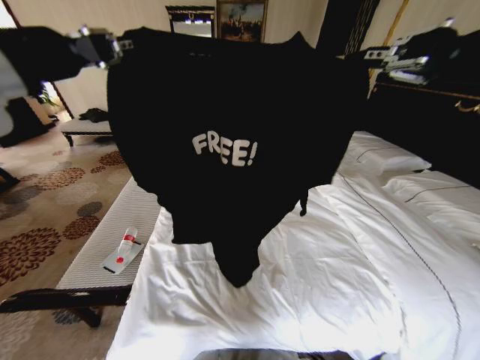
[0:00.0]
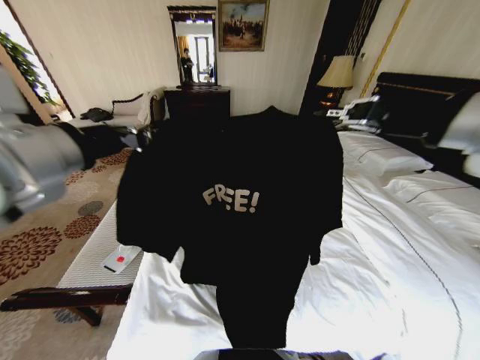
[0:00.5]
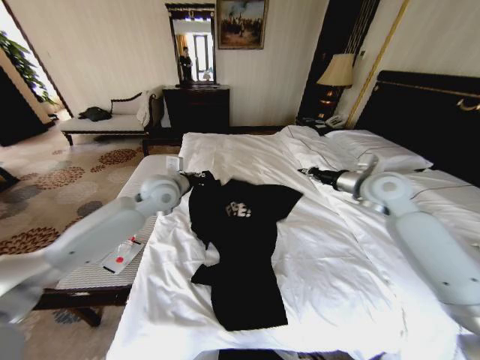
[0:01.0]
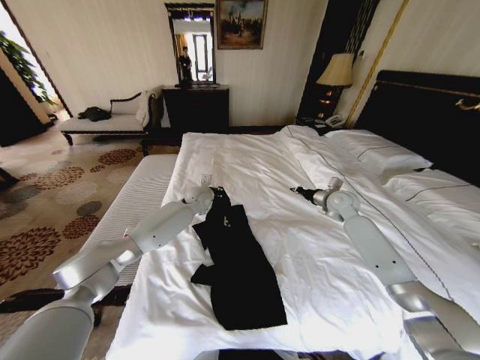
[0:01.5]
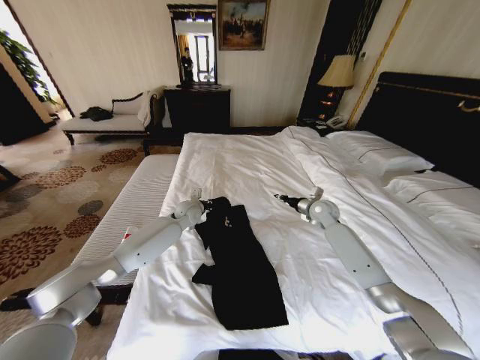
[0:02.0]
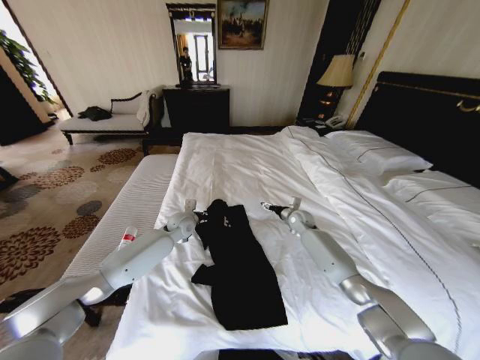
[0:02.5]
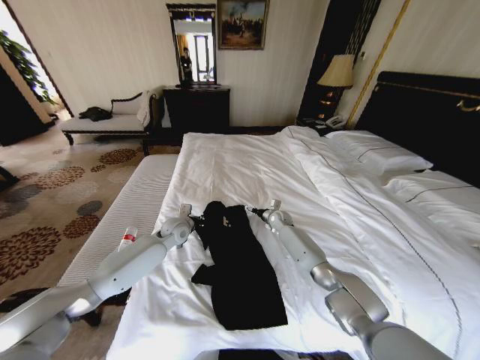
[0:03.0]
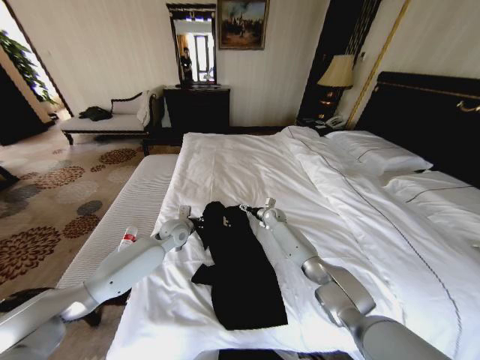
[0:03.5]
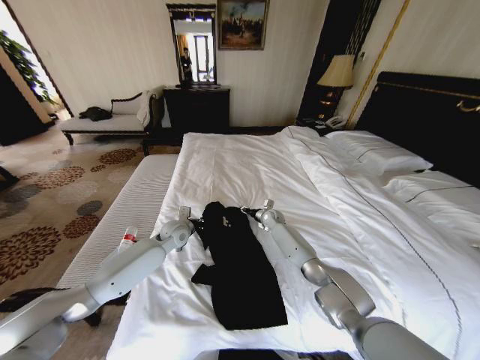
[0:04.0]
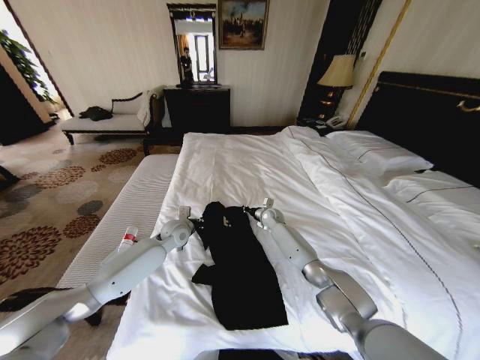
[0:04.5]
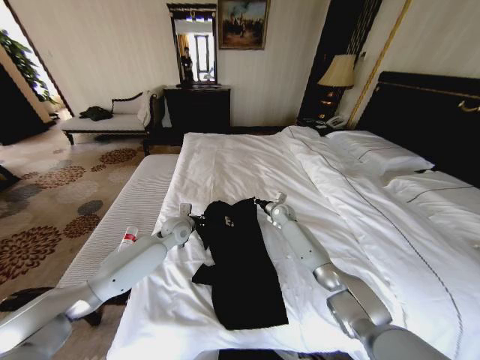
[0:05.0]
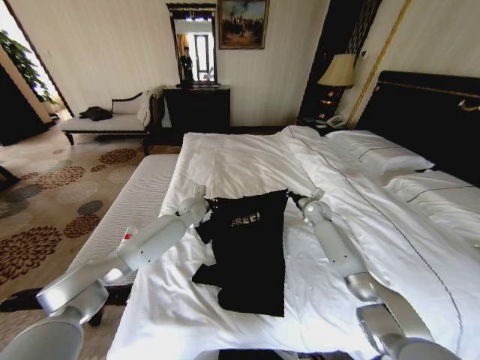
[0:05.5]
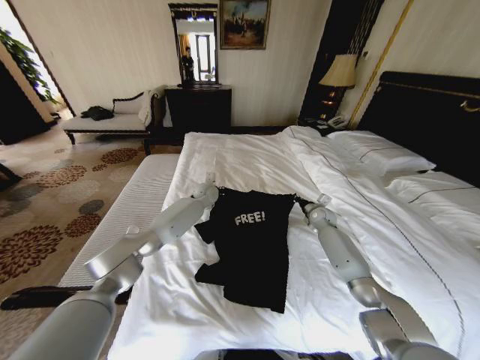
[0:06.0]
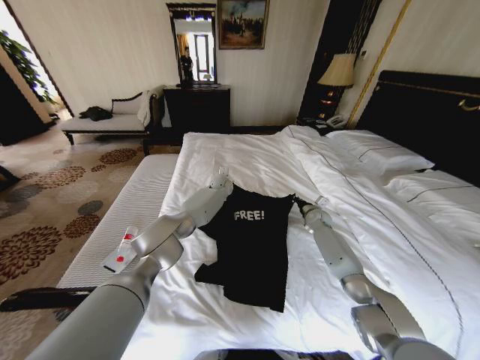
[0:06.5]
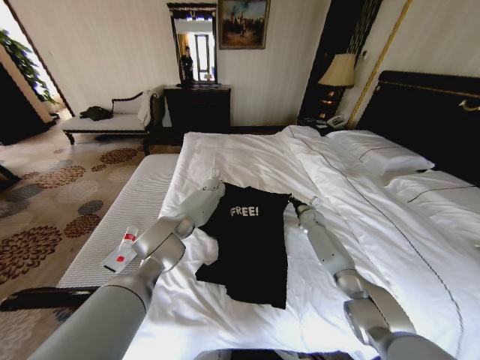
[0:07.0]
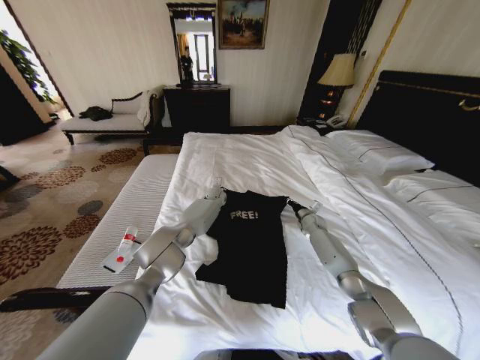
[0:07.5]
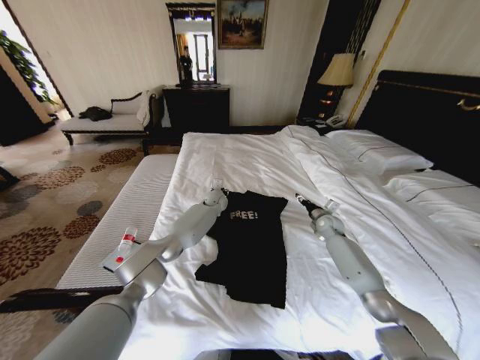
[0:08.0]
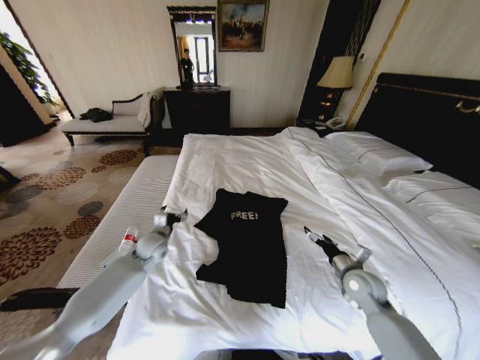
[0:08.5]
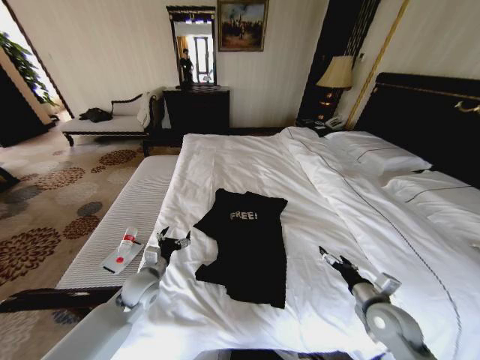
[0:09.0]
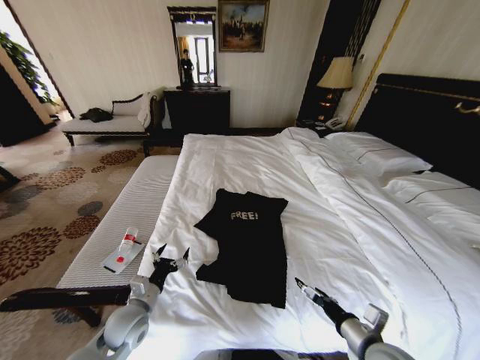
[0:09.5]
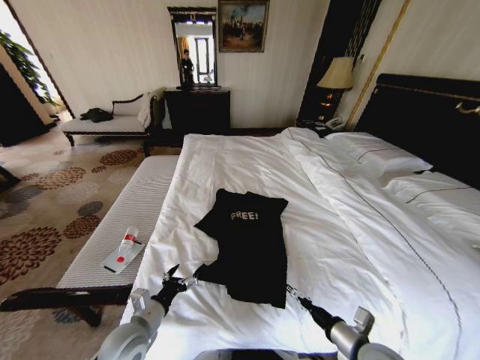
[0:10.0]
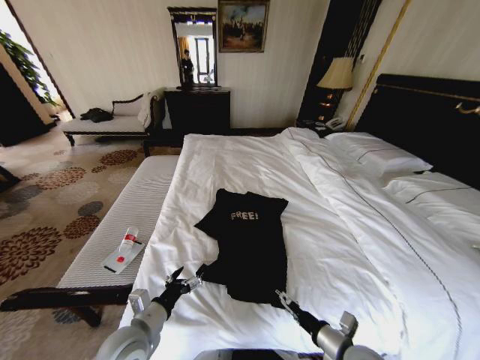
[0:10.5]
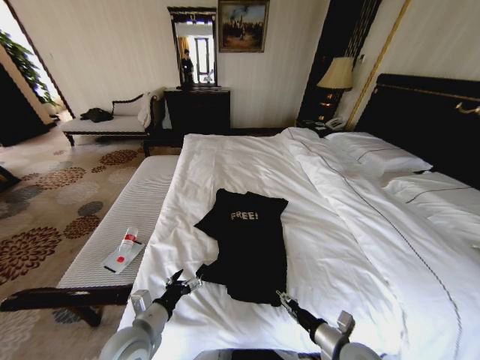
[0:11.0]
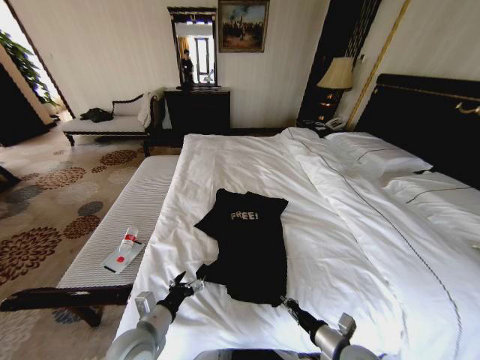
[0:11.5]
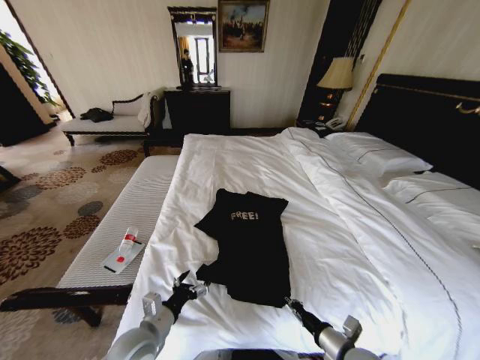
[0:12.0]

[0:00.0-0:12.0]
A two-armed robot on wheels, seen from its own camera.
Task of the whole recording: Fold the clothes on the bed.
0:00.0 to 0:02.0: The two grippers go some 50 cm downward and forward.
0:02.0 to 0:04.0: The left gripper heads backward, covering roughly 5 cm. Meanwhile the right gripper travels to the left, downward and forward by some 20 cm, and opens, then closes once more.
0:04.0 to 0:06.0: The right gripper is displaced to the right by roughly 20 cm, and closes. Meanwhile the left gripper moves forward and to the right, approximately 20 cm.
0:06.0 to 0:08.0: The right gripper opens its fingers; the left gripper opens up.
0:08.0 to 0:10.0: The right gripper goes about 40 cm backward. Meanwhile the left gripper is displaced backward and to the left by roughly 50 cm.
0:10.0 to 0:12.0: The right gripper closes its fingers.

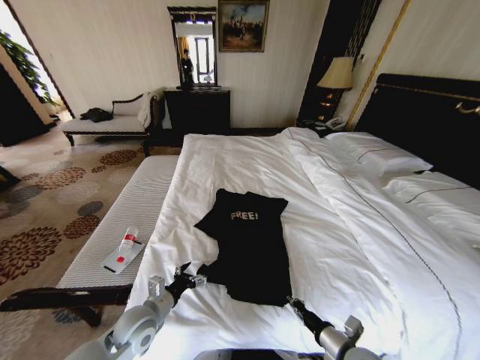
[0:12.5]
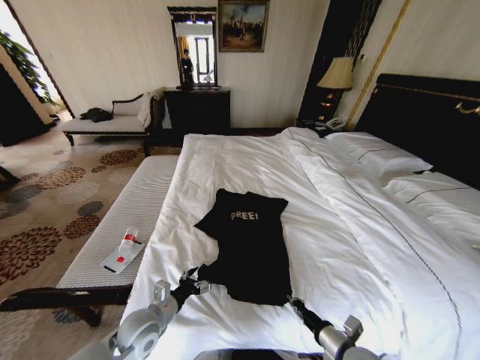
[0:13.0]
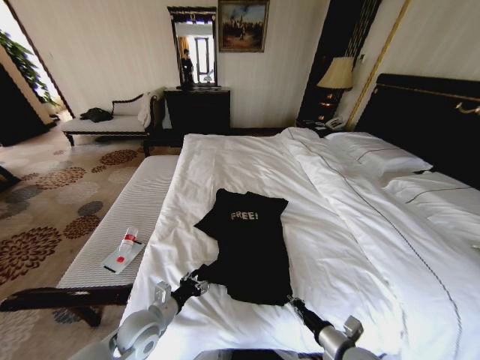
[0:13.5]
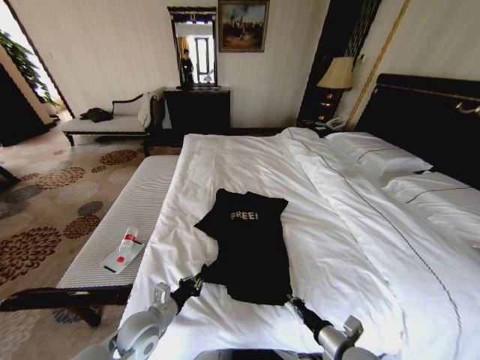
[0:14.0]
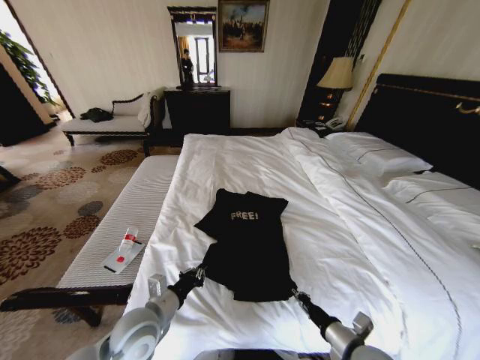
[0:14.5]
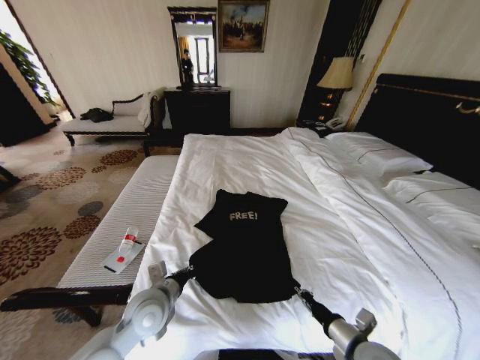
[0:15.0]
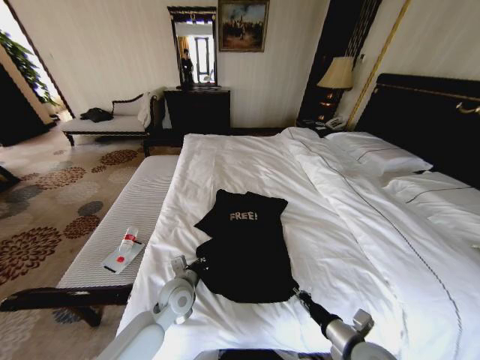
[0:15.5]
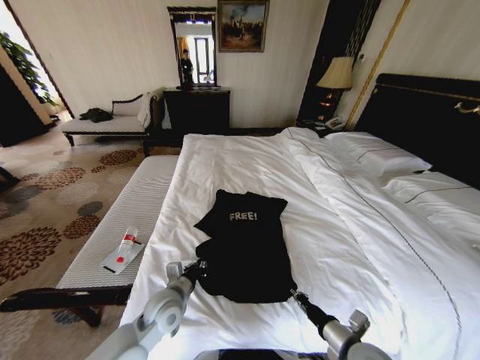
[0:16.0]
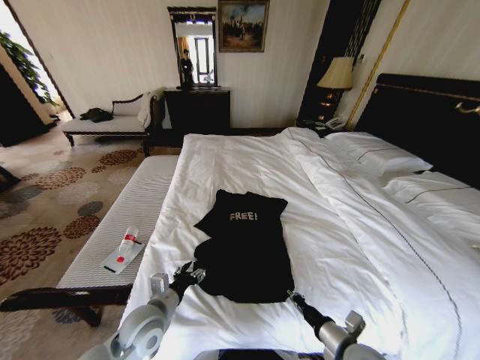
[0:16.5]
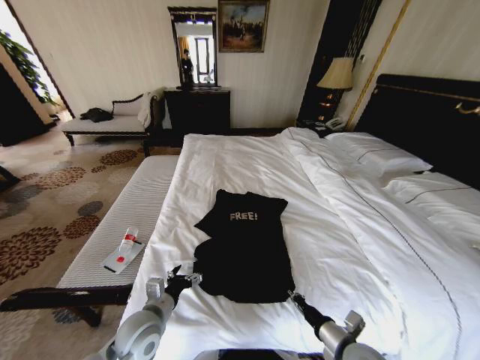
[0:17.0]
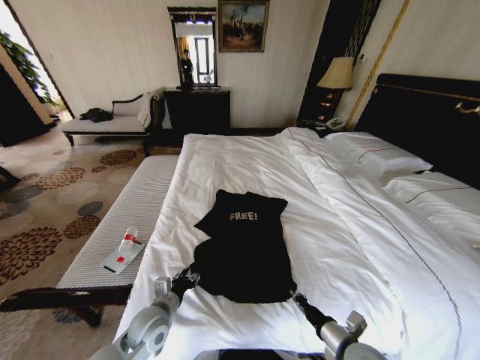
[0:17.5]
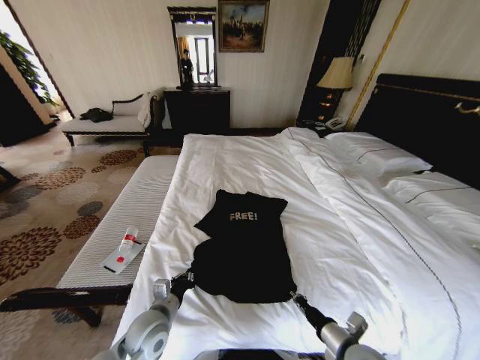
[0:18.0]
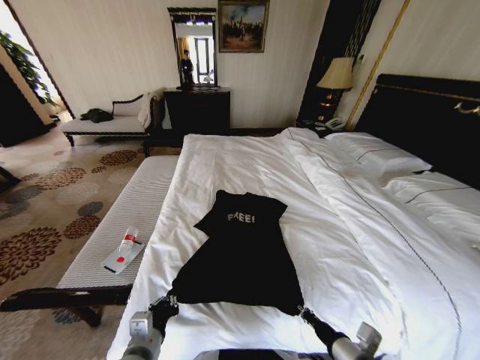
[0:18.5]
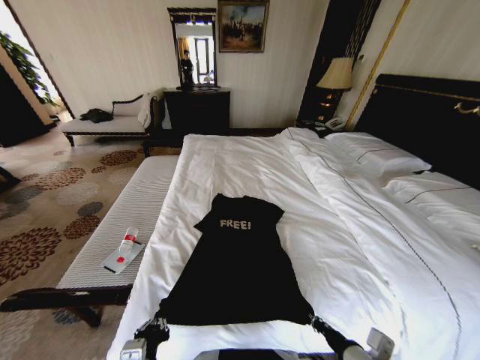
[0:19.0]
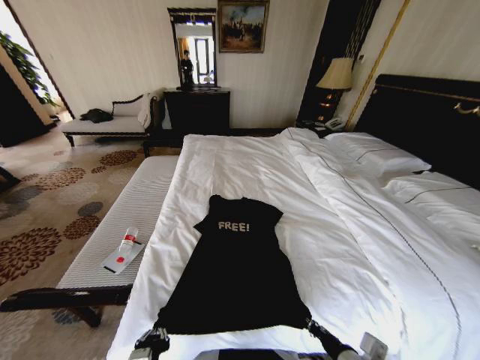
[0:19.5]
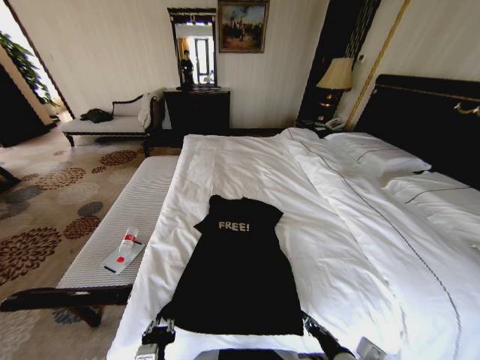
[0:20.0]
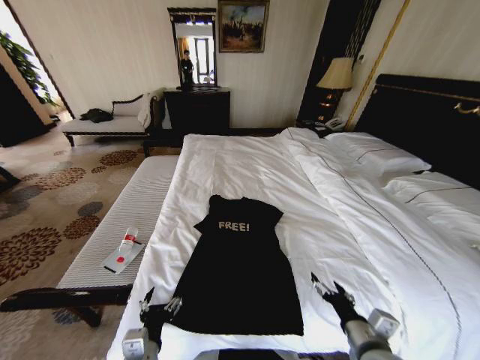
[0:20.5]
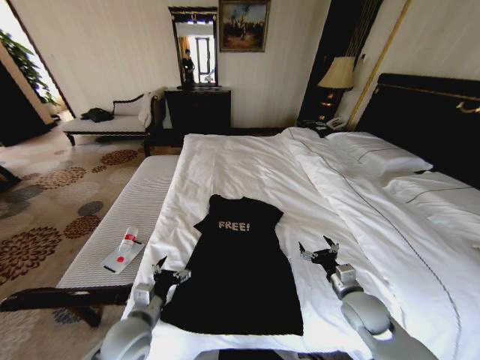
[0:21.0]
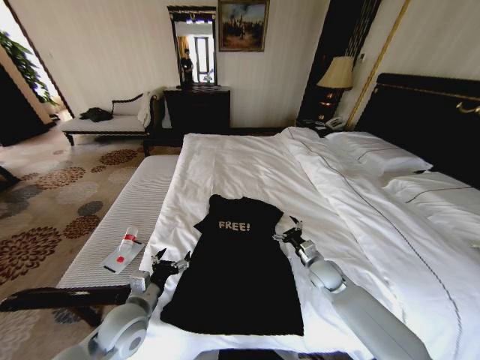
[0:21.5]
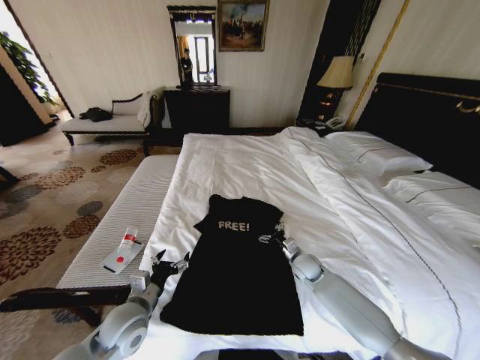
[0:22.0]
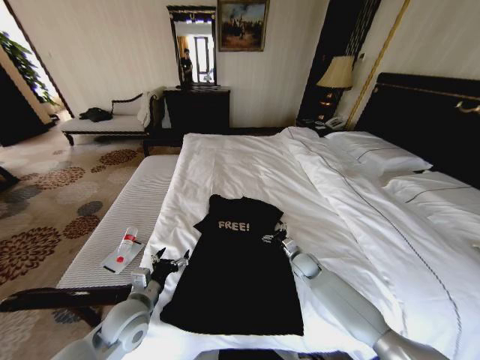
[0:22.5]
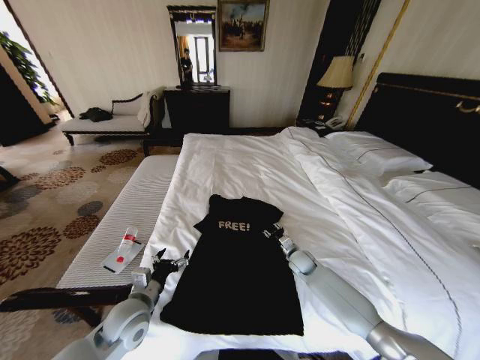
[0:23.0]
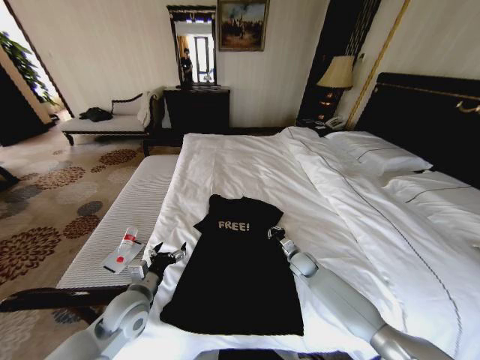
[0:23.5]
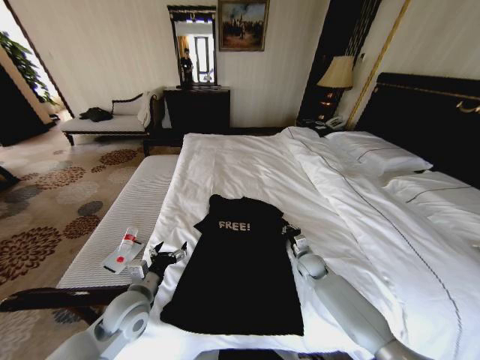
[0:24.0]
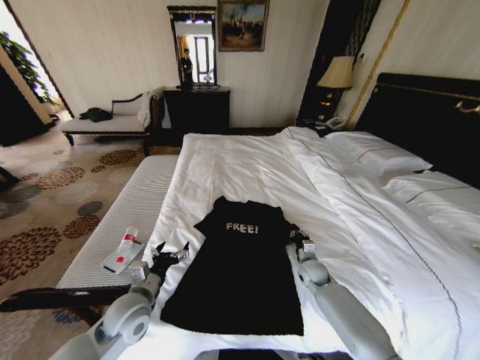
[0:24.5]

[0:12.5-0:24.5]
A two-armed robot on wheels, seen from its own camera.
Task of the whole recording: Fold the clothes on the bed.
0:12.5 to 0:14.5: The left gripper moves upward, roughly 5 cm, and closes up.
0:14.5 to 0:16.5: The left gripper moves roughly 10 cm forward and comes back, and opens its fingers.
0:16.5 to 0:18.5: The left gripper shifts some 10 cm backward, and closes up.
0:18.5 to 0:20.5: The left gripper opens up, while the right gripper opens its fingers.
0:20.5 to 0:22.5: The right gripper heads forward and downward, covering about 30 cm. Meanwhile the left gripper goes roughly 15 cm forward and to the left.
0:22.5 to 0:24.5: The right gripper closes its fingers.

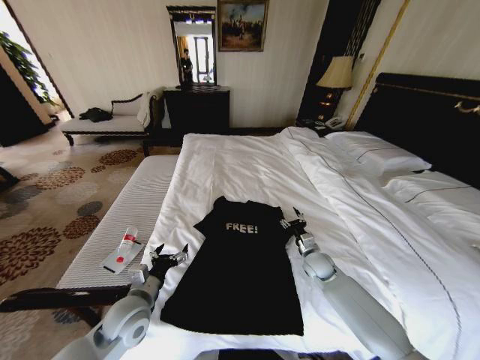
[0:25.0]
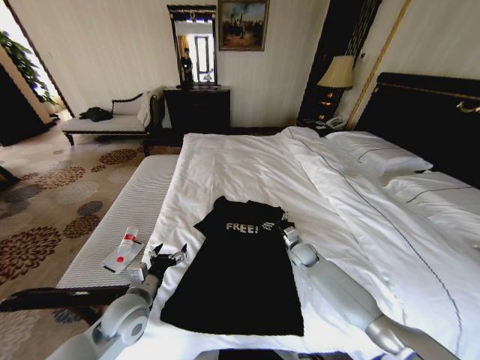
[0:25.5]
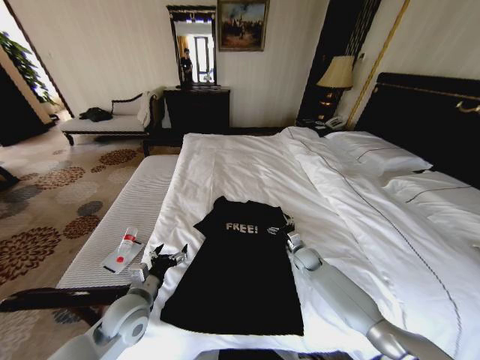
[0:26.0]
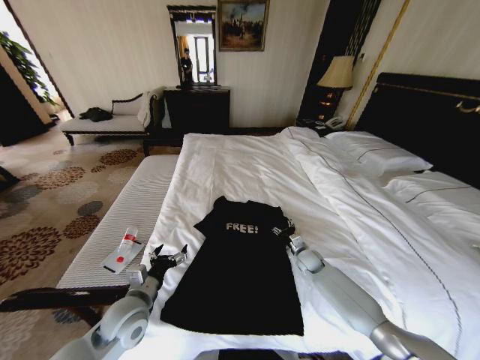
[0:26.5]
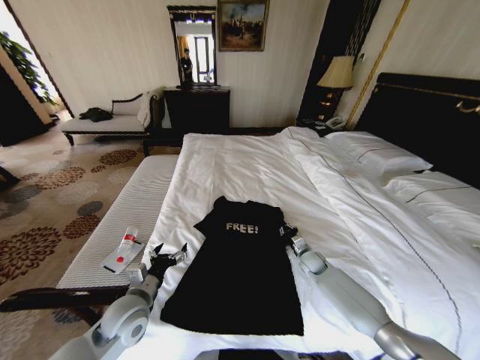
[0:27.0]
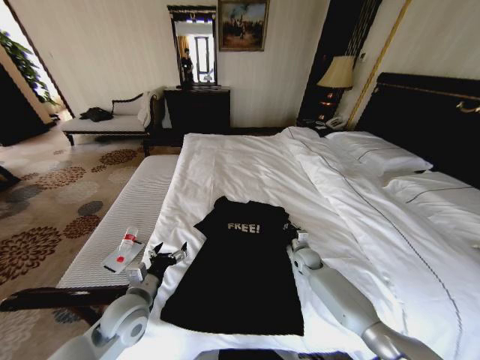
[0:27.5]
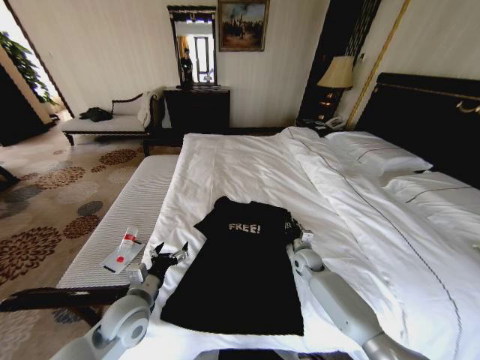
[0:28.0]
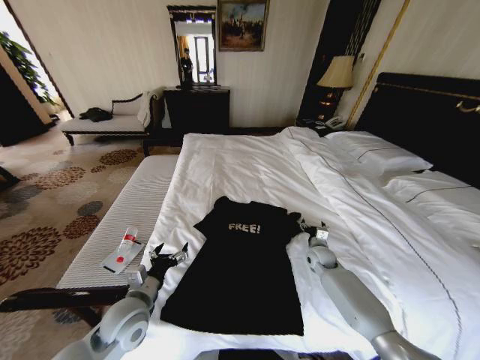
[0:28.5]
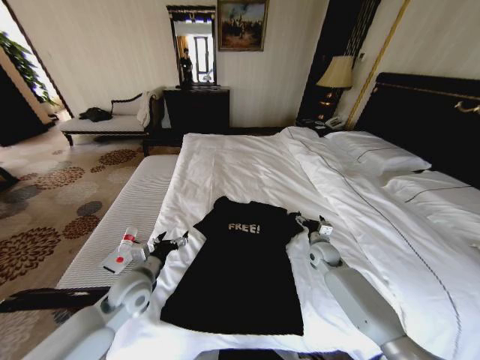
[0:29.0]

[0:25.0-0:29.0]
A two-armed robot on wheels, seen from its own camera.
Task of the whole recording: Fold the clothes on the bed.
0:25.0 to 0:27.0: The right gripper travels downward by roughly 5 cm, and closes up.
0:27.0 to 0:29.0: The right gripper is displaced upward by about 5 cm, and opens up. Meanwhile the left gripper goes roughly 5 cm forward.
